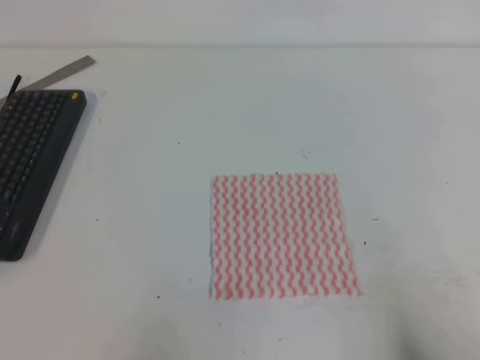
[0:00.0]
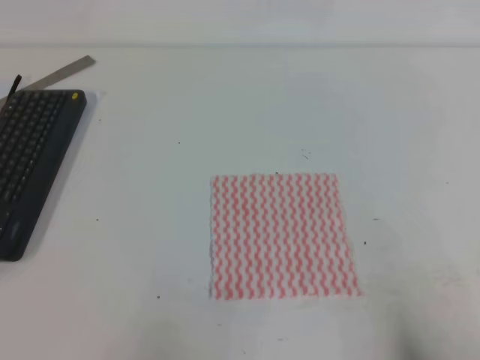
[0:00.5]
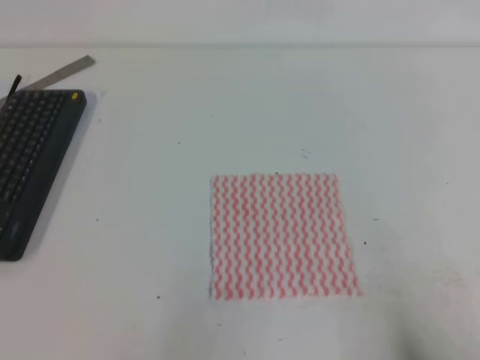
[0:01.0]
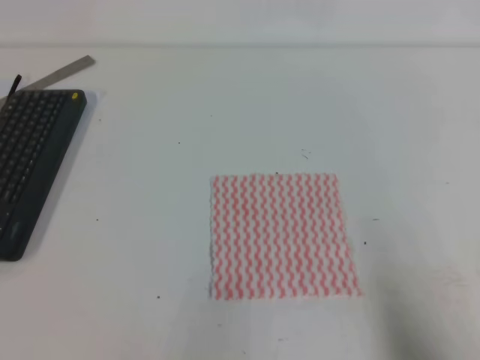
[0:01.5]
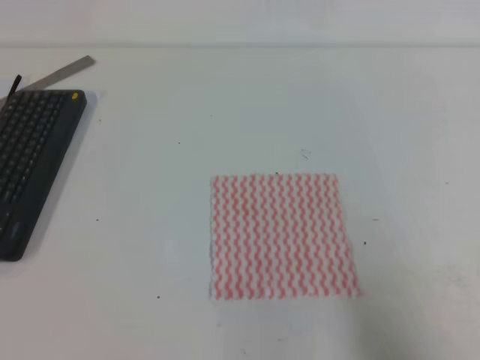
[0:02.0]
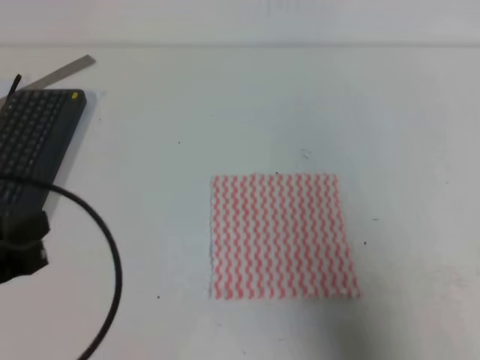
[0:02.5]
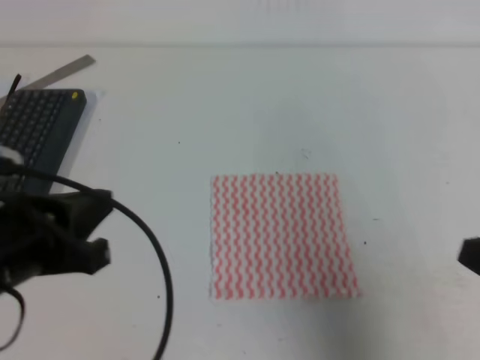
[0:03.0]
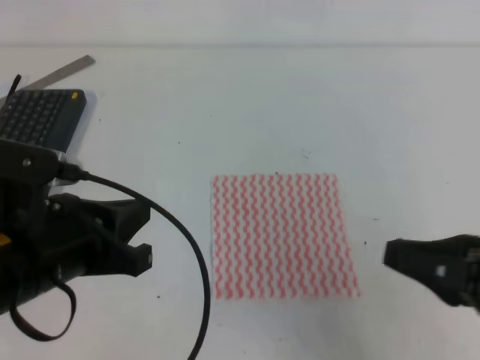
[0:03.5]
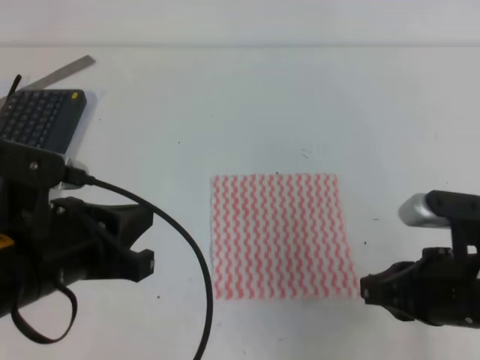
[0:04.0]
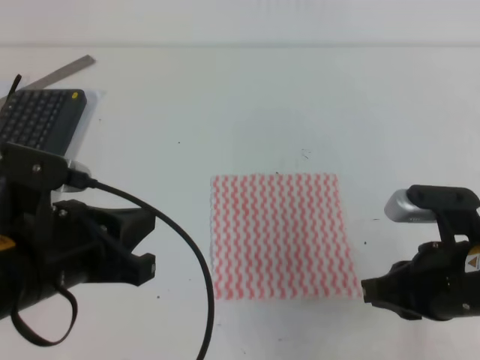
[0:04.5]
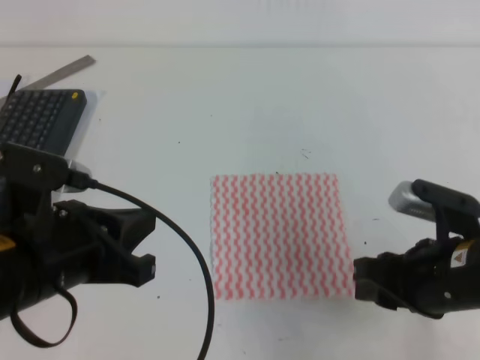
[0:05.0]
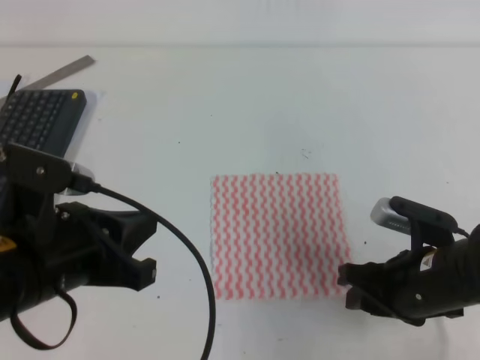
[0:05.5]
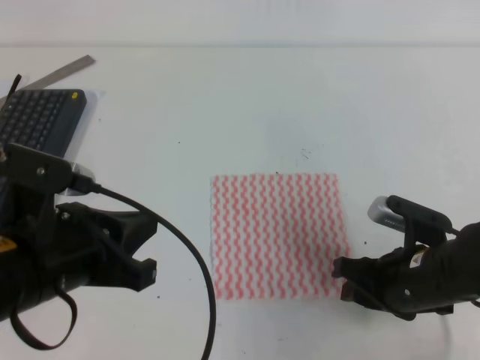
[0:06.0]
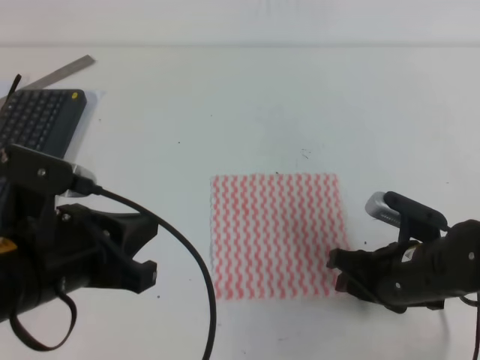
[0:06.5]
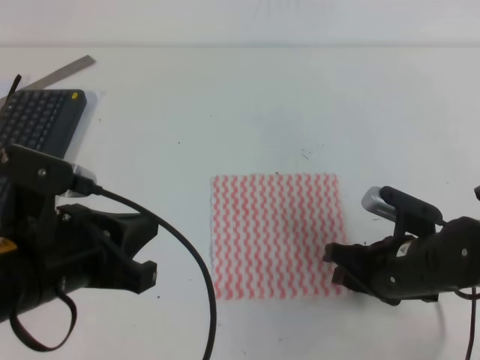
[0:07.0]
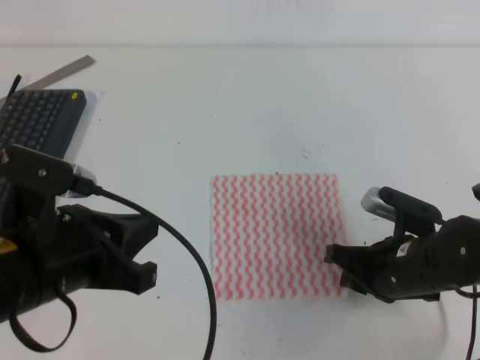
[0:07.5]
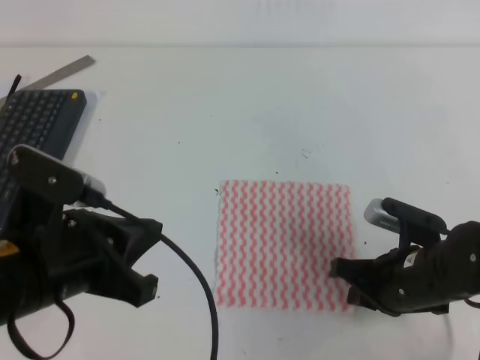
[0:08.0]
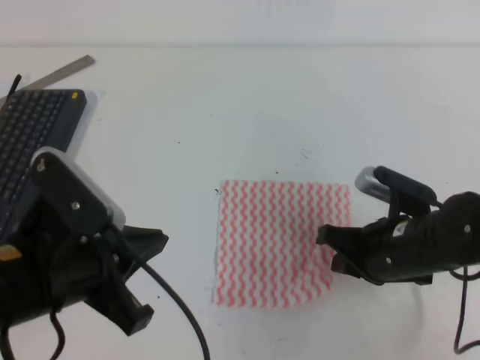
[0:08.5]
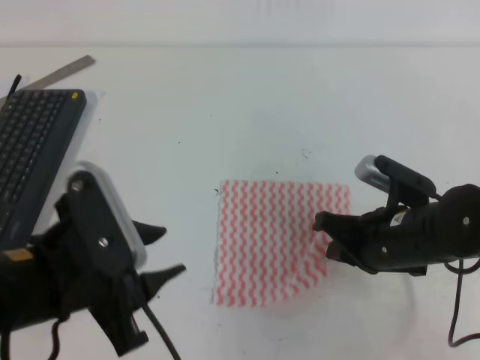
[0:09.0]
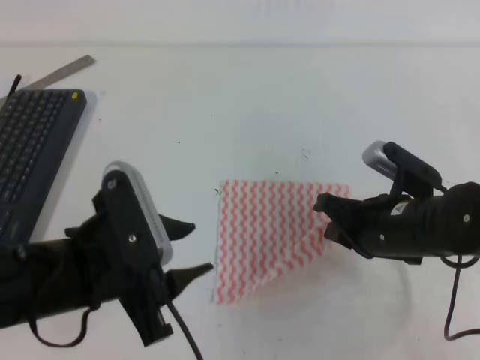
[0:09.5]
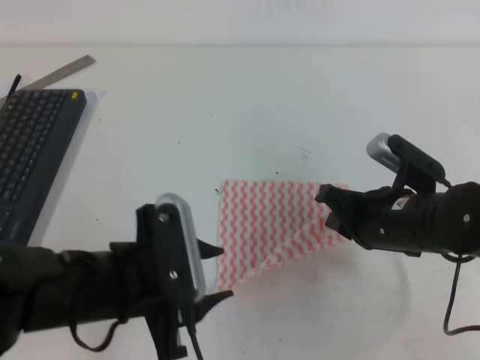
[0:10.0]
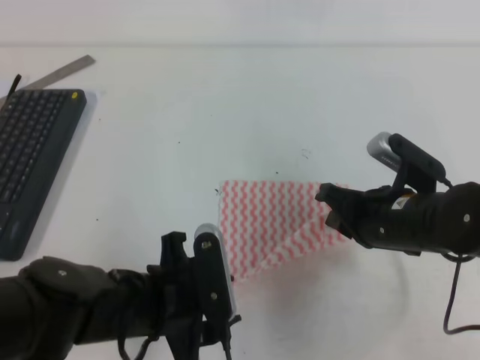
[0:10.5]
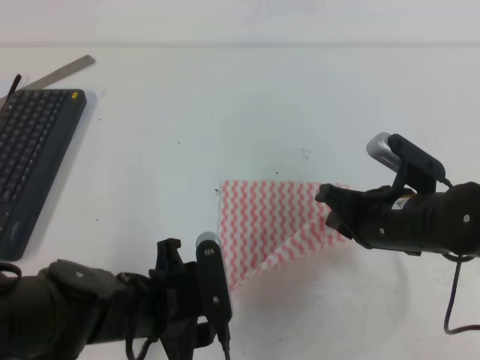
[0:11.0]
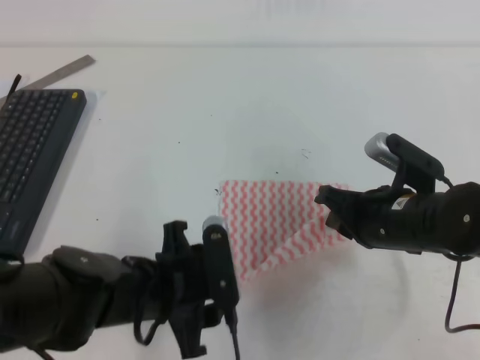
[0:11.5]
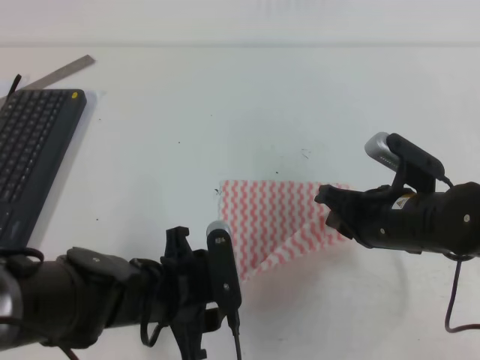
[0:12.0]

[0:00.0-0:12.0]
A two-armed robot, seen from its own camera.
0:00.0 to 0:02.0: The right gripper is displaced upward by approximately 5 cm.
0:02.0 to 0:04.0: The left gripper travels forward and to the right by some 15 cm, while the right gripper shifts roughly 15 cm forward and to the left.
0:04.0 to 0:06.0: The right gripper travels downward and forward by approximately 10 cm, and opens.
0:06.0 to 0:08.0: The right gripper closes its fingers.
0:08.0 to 0:10.0: The right gripper ends up roughly 5 cm from where it was. The left gripper is displaced downward by some 5 cm, and opens.
0:10.0 to 0:12.0: The left gripper goes approximately 5 cm downward.

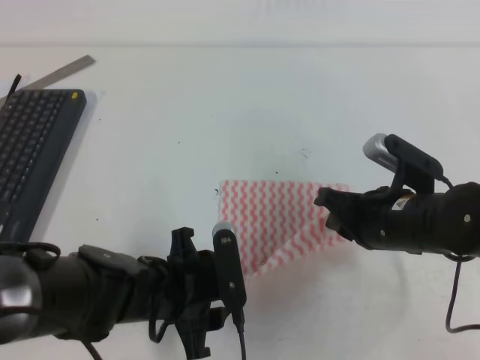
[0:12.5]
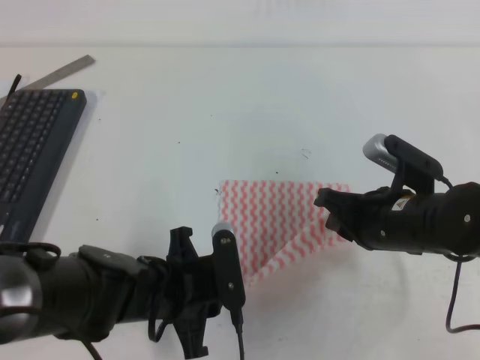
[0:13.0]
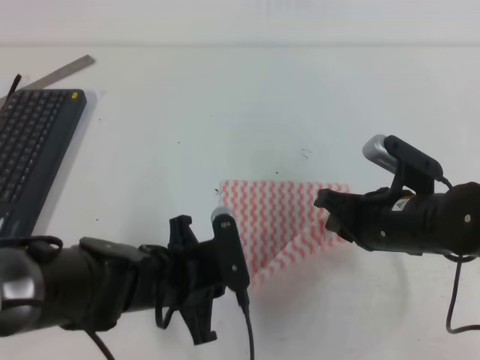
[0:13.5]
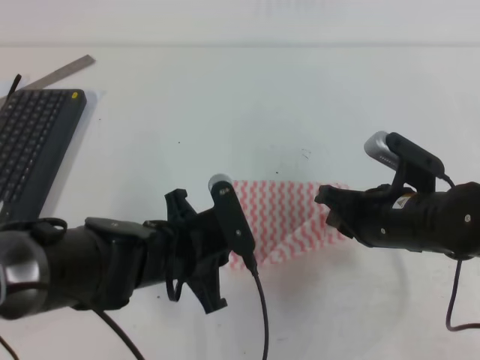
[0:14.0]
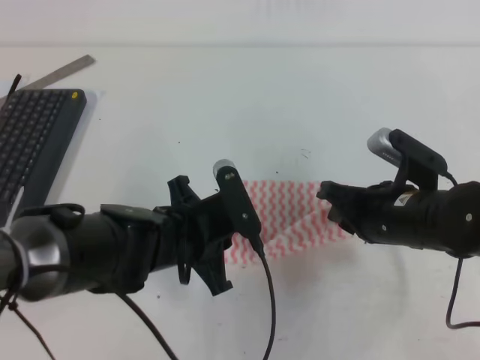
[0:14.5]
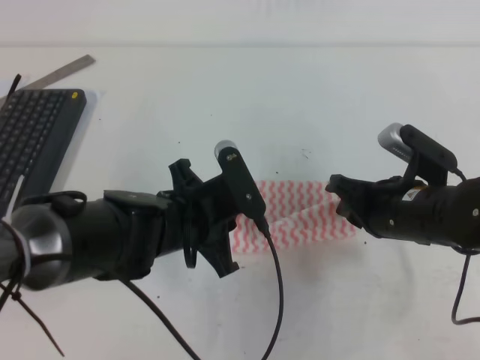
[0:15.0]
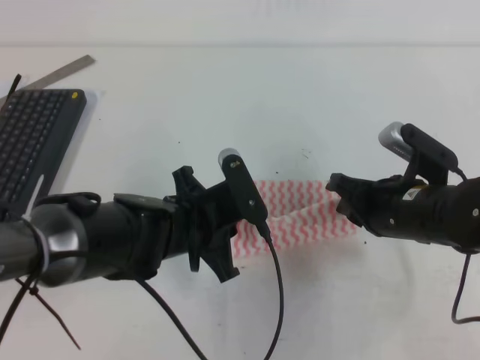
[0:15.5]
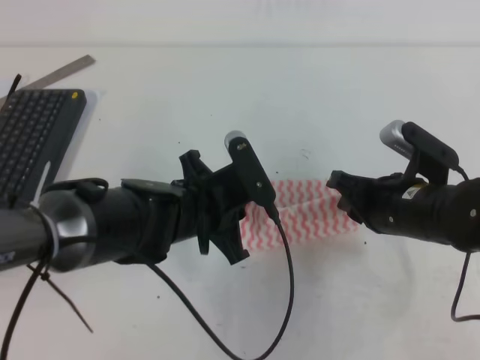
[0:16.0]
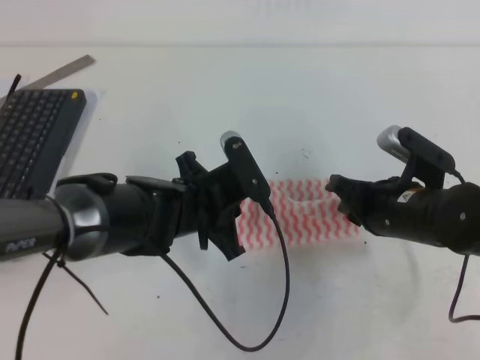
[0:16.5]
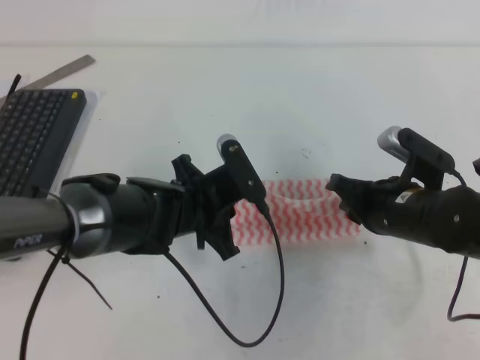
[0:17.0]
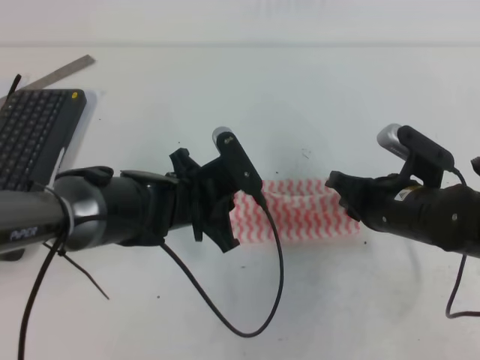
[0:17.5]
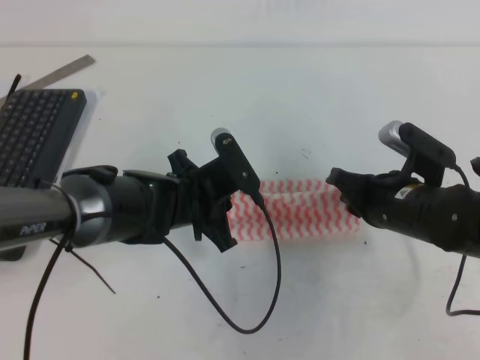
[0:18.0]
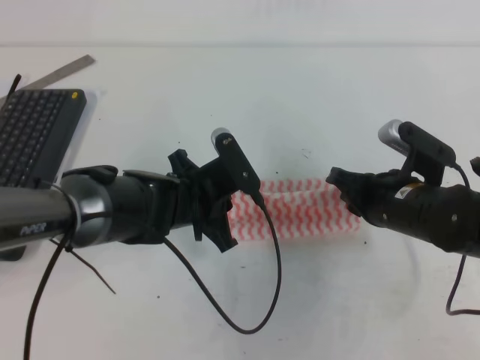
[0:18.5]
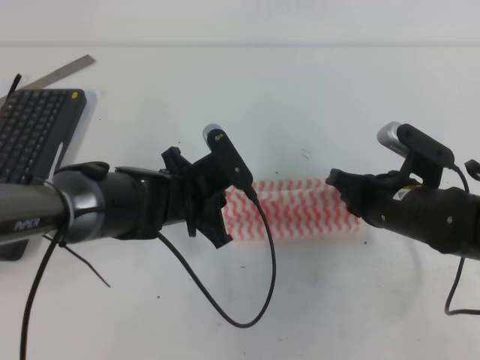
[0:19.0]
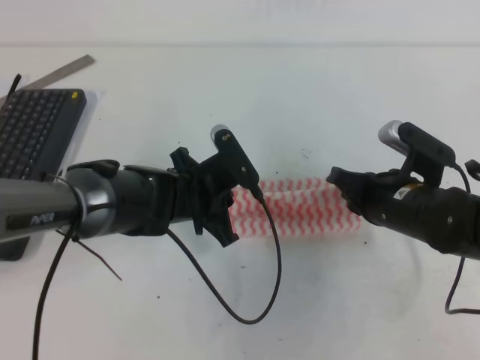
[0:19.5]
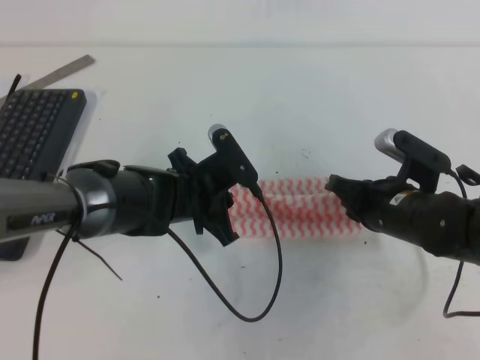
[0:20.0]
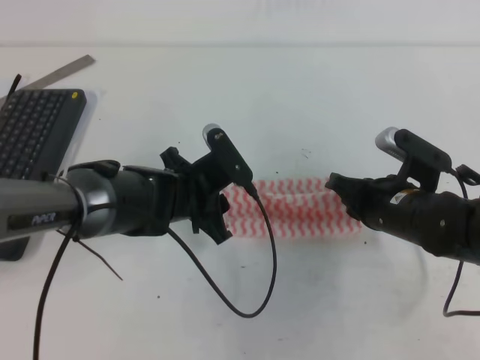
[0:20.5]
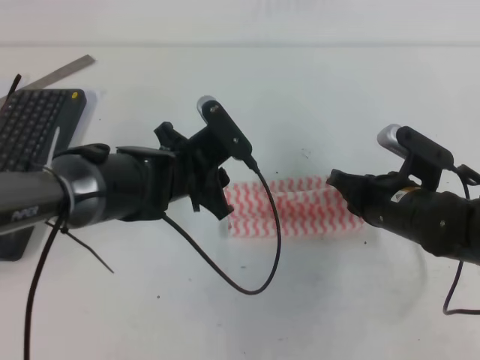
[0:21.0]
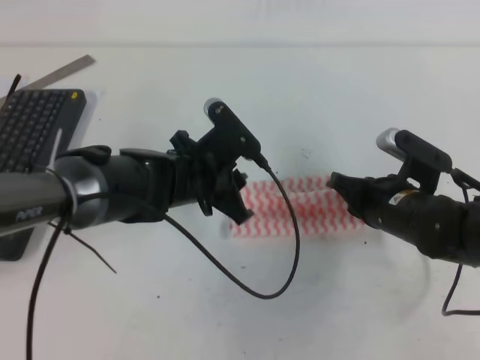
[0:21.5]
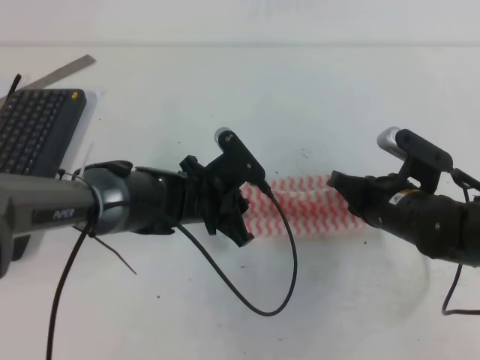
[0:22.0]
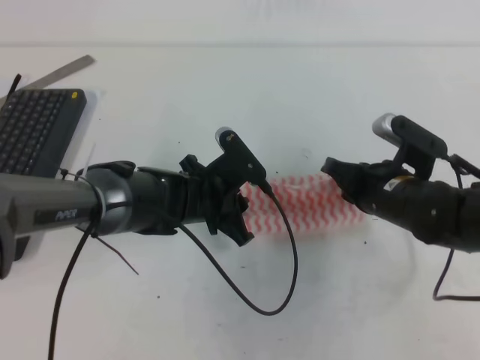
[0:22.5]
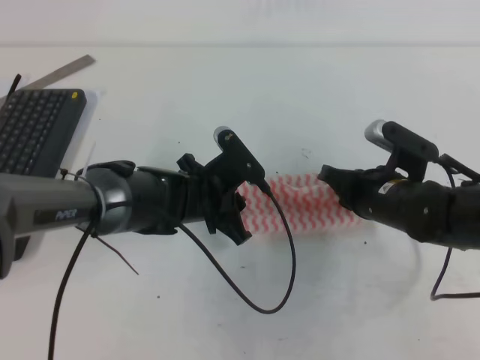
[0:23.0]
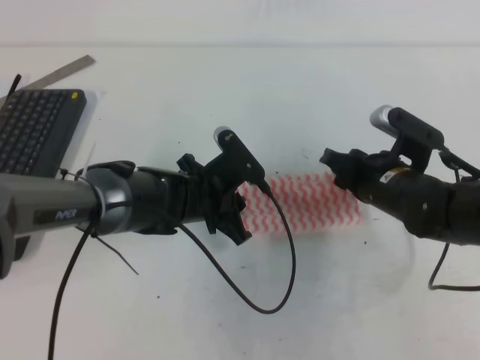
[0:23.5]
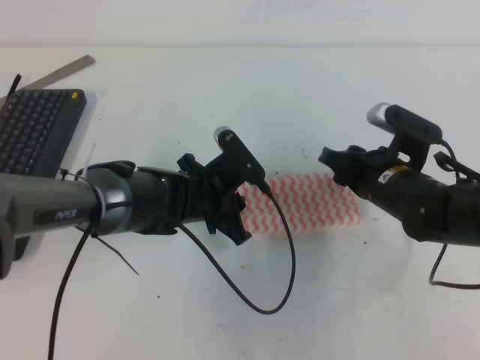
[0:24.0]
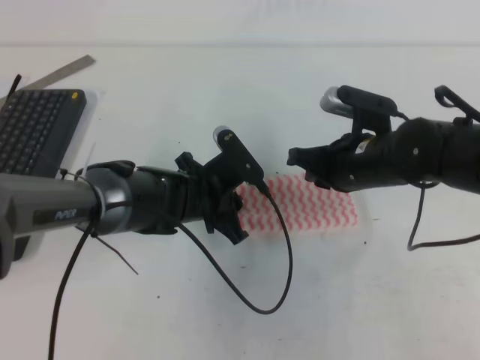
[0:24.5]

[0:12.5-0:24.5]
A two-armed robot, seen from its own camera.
0:12.5 to 0:14.5: The left gripper moves about 5 cm, and closes up.
0:14.5 to 0:16.5: The grippers stay close to where they were, moving slightly.
0:16.5 to 0:18.5: The grippers move only a little.
0:18.5 to 0:20.5: The left gripper opens.
0:20.5 to 0:22.5: The grippers move only a little.
0:22.5 to 0:24.5: The right gripper opens, then closes again.

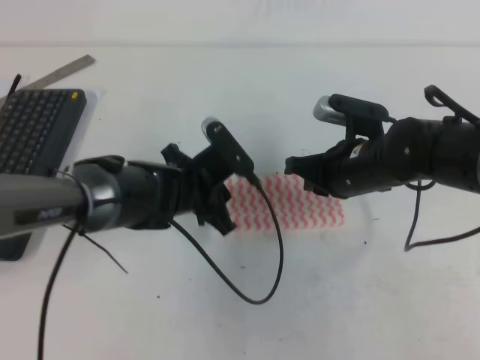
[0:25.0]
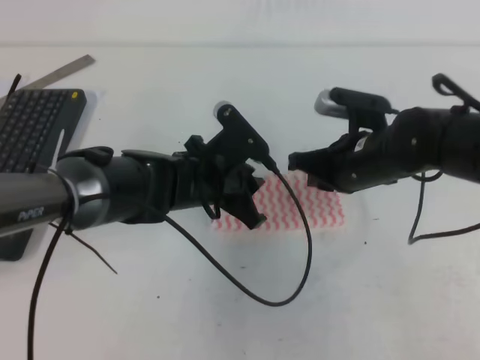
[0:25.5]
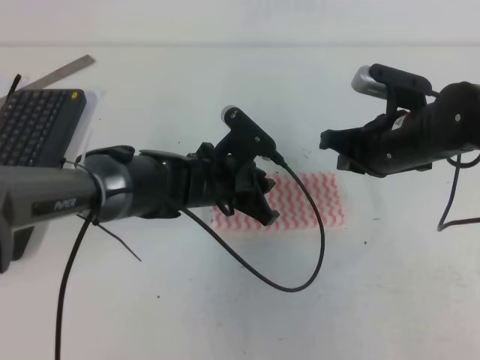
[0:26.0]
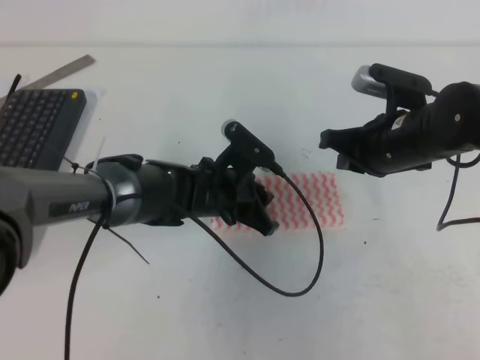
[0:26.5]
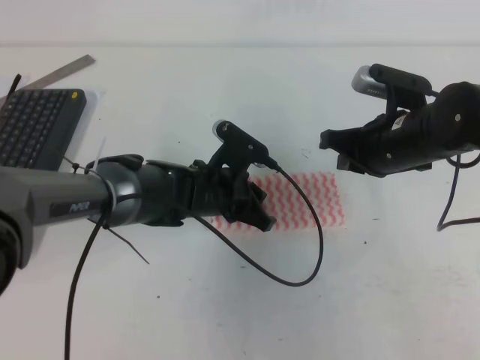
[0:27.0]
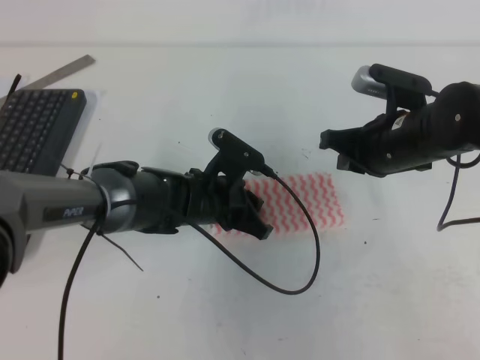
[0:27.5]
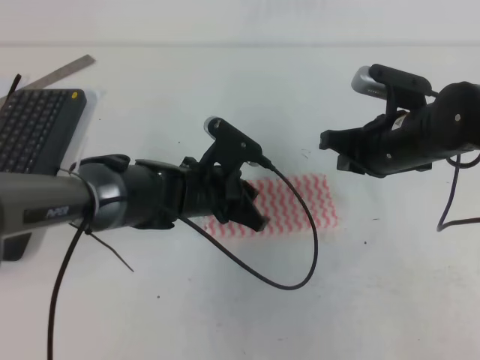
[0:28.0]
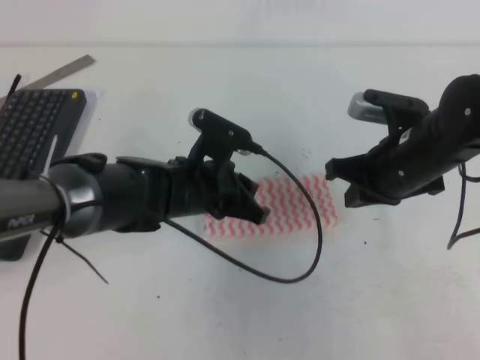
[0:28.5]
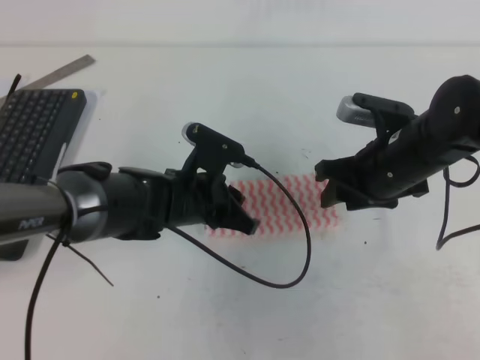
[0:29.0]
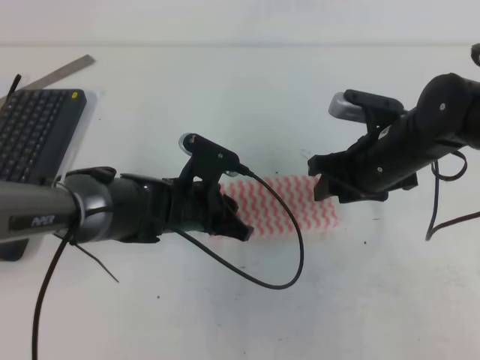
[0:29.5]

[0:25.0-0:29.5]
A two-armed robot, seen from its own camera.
0:25.0 to 0:27.0: The right gripper shifts by about 5 cm.
0:27.0 to 0:29.5: The right gripper opens its fingers.
